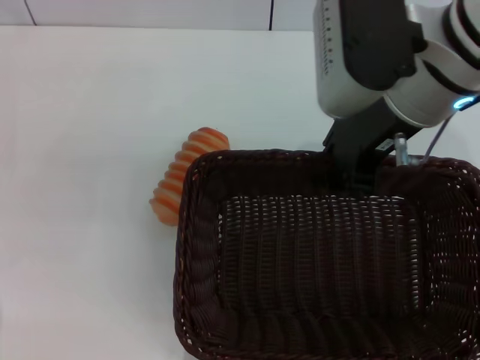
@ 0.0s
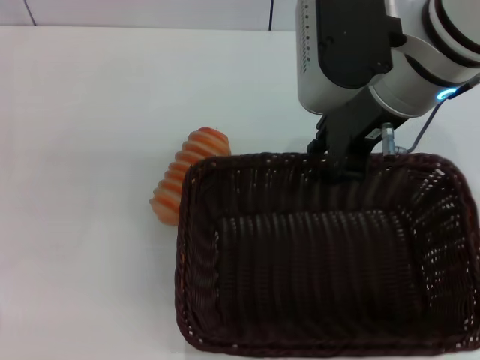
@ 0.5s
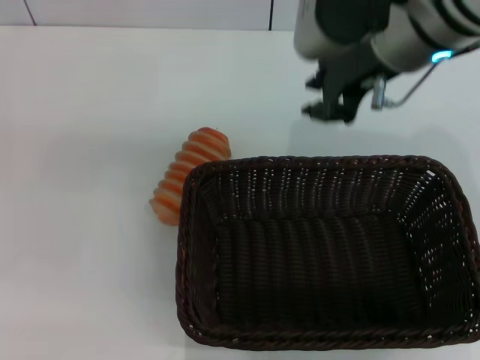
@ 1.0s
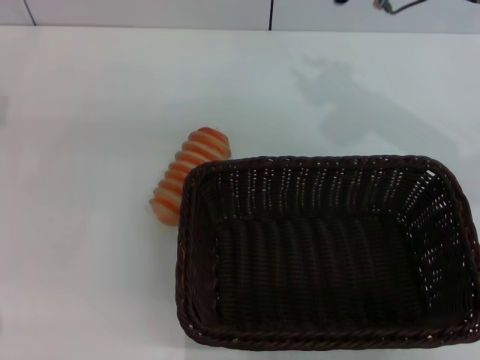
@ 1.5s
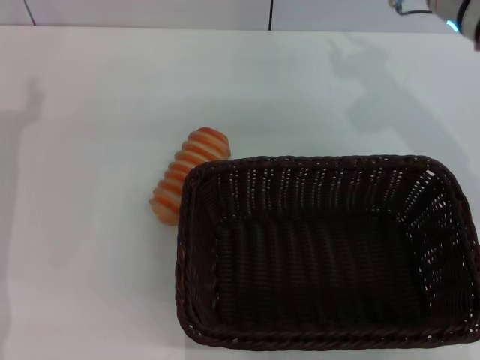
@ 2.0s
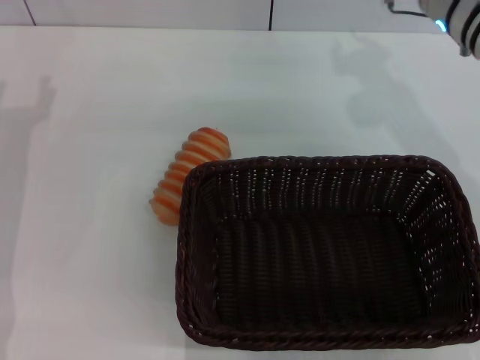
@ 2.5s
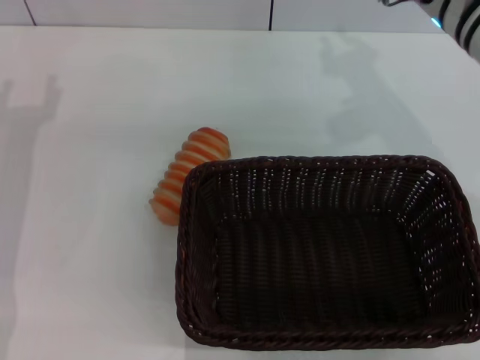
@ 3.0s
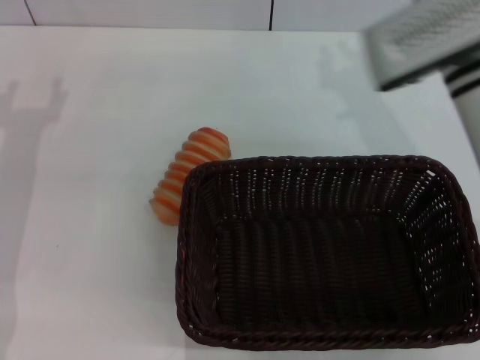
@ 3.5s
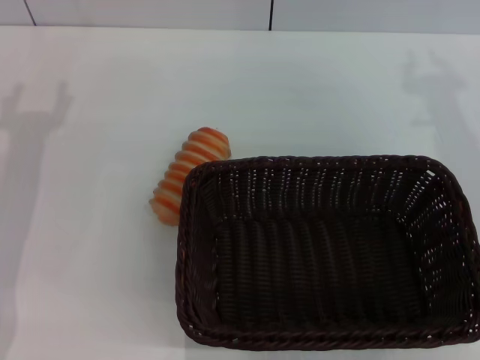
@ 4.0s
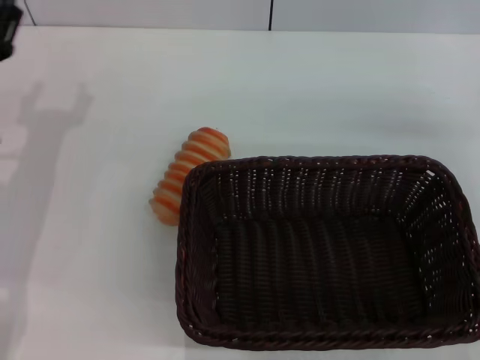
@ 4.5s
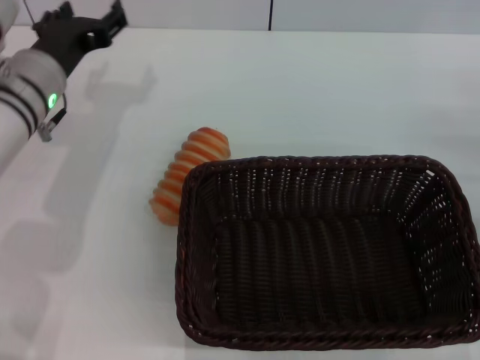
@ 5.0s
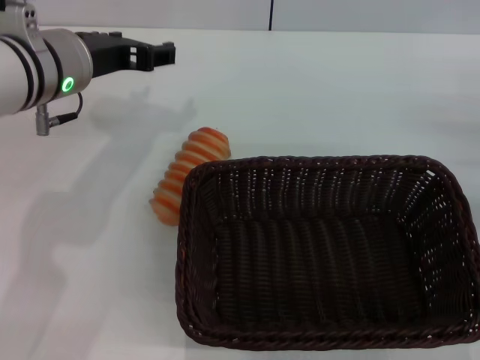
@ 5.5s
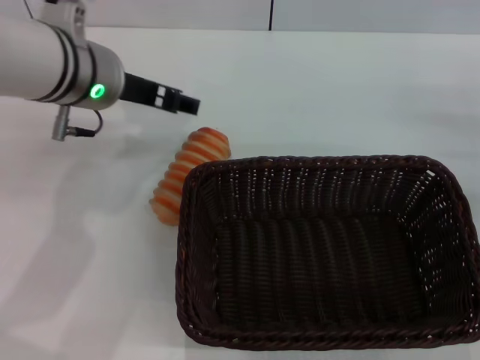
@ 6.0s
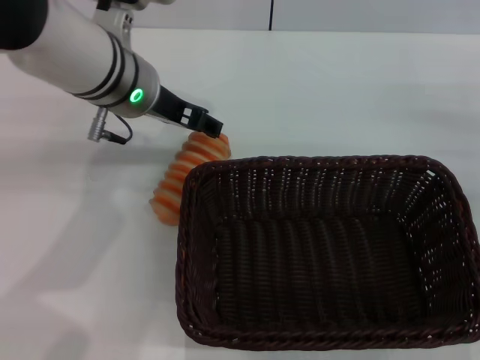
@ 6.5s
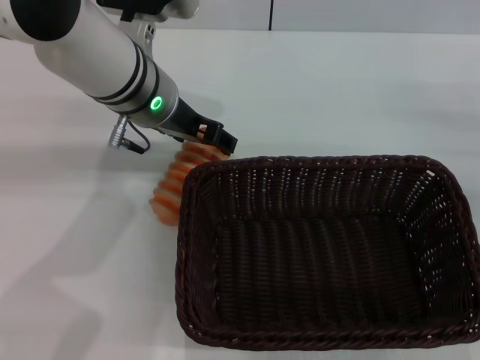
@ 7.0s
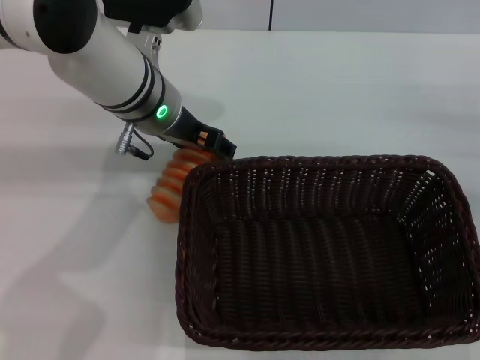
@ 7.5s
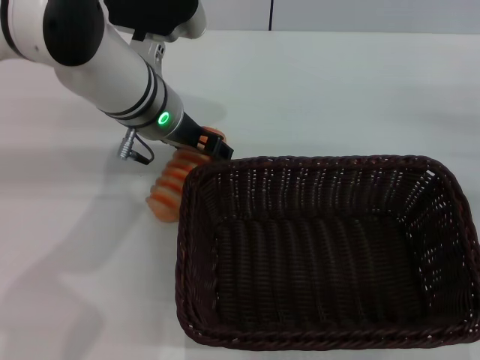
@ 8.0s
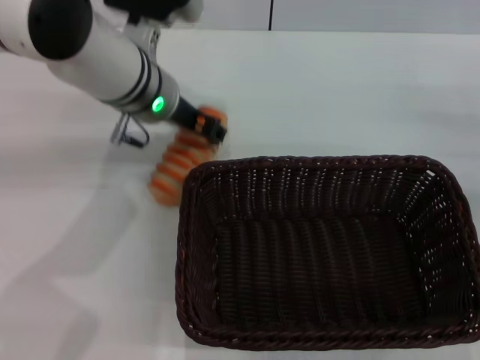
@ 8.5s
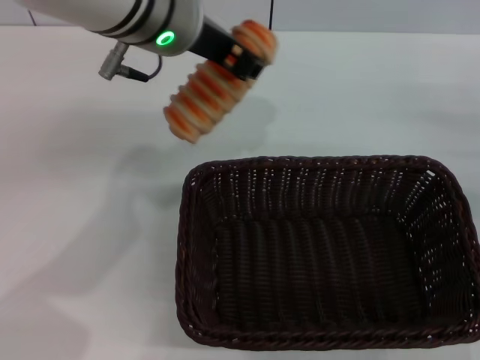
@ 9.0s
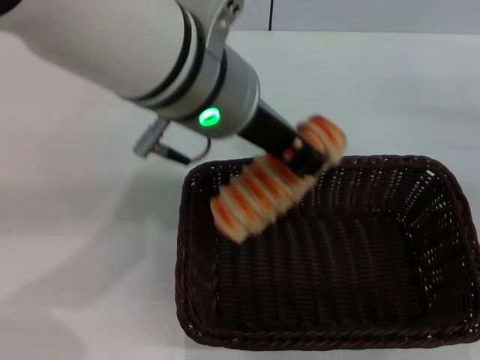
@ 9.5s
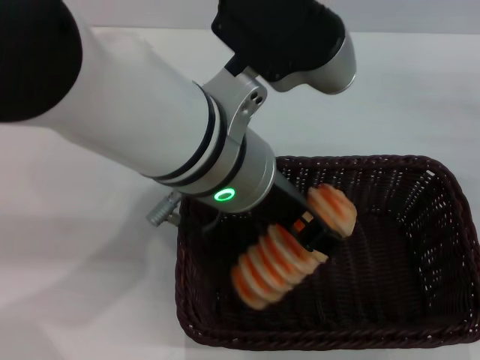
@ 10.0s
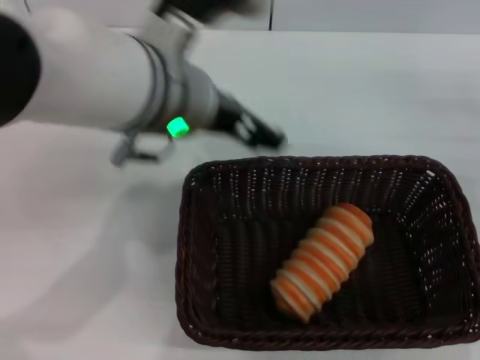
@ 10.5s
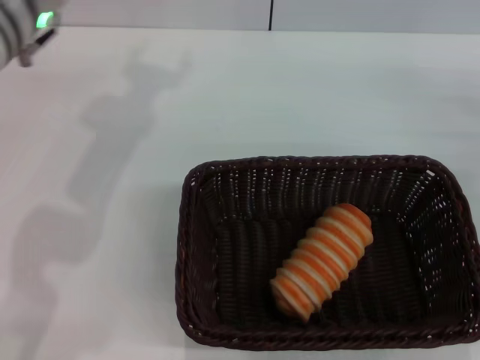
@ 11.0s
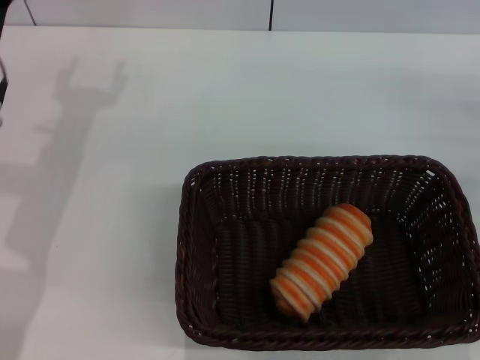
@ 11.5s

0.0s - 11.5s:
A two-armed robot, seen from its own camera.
Step, 1.0s - 8.5s: Pick up the long bread with the left gripper.
Step, 9.0s - 10.0s: Place the long bread into the dark basket with the left gripper.
0.0s - 2.0s: The right gripper heads forward, to the right and downward, covering roughly 10 cm.
2.0s - 4.0s: The right gripper heads backward and to the right, covering about 10 cm.
4.0s - 6.0s: The left gripper moves to the right, upward and forward, some 20 cm; the right gripper shifts approximately 15 cm to the right and downward.
6.0s - 7.5s: The left gripper moves approximately 5 cm.
7.5s - 9.5s: The left gripper goes approximately 15 cm upward, backward and to the right, and closes up.
9.5s - 11.5s: The left gripper travels to the left and downward by some 25 cm, and opens up.
